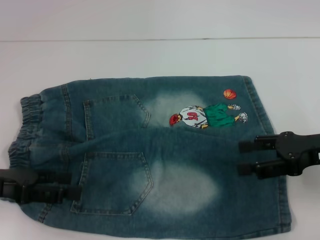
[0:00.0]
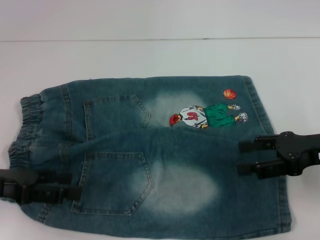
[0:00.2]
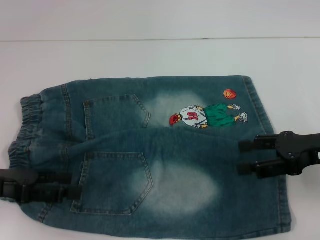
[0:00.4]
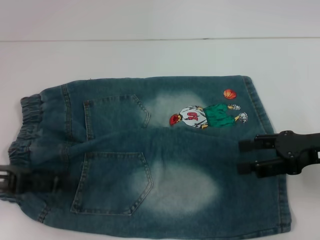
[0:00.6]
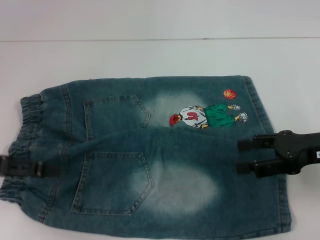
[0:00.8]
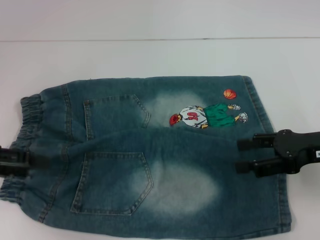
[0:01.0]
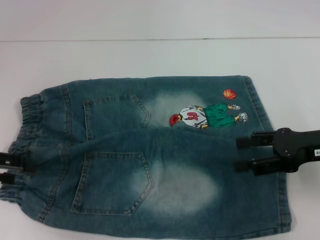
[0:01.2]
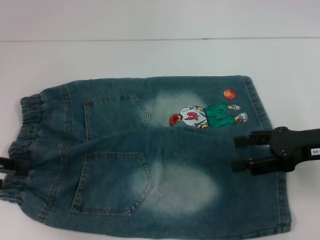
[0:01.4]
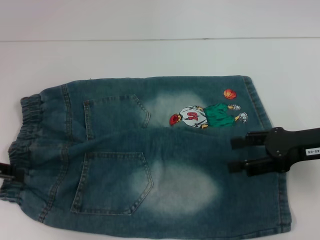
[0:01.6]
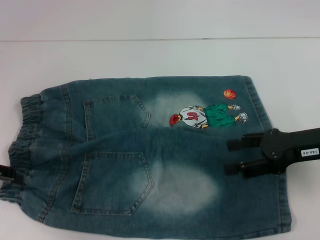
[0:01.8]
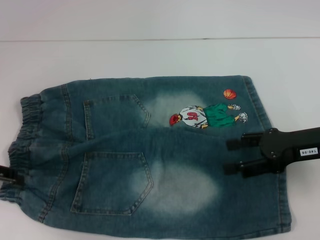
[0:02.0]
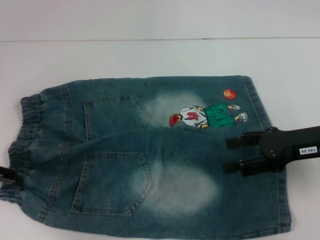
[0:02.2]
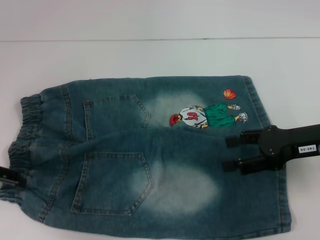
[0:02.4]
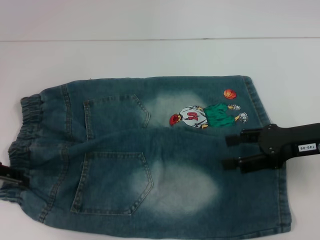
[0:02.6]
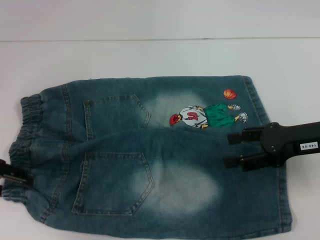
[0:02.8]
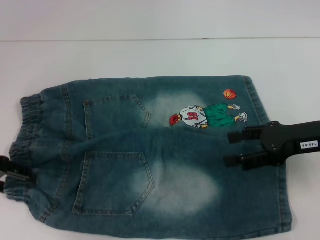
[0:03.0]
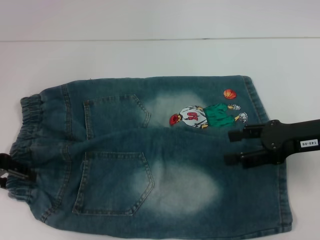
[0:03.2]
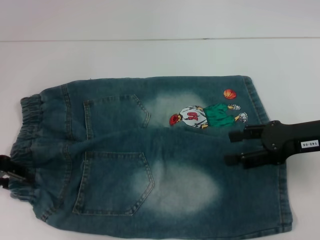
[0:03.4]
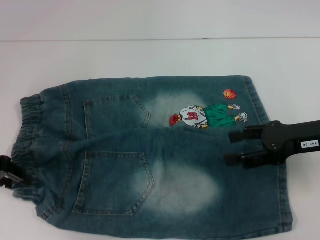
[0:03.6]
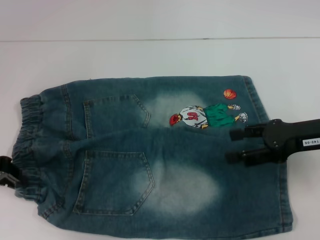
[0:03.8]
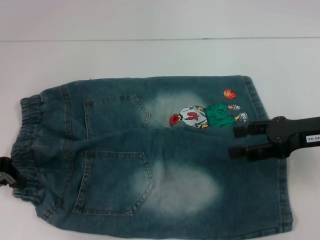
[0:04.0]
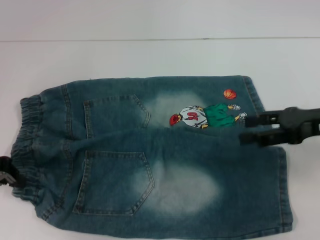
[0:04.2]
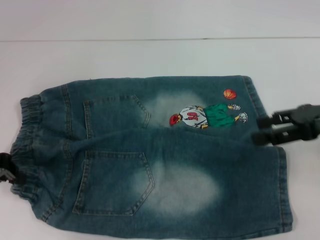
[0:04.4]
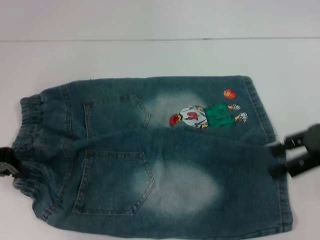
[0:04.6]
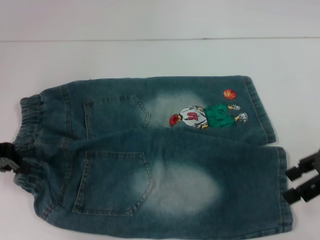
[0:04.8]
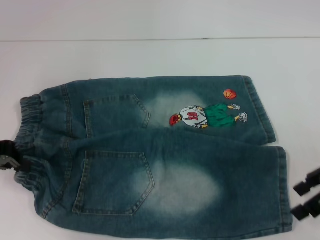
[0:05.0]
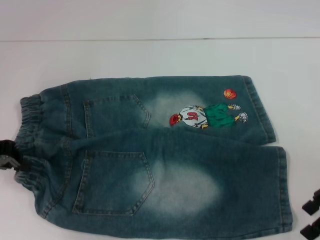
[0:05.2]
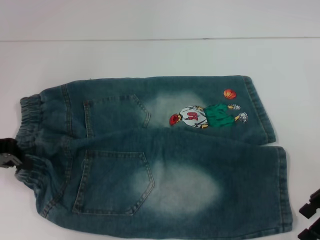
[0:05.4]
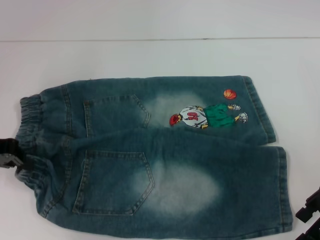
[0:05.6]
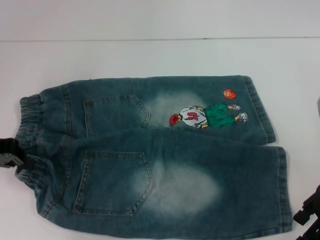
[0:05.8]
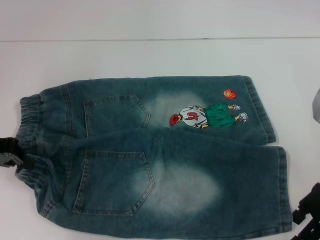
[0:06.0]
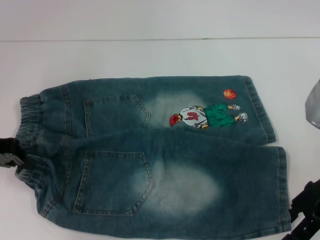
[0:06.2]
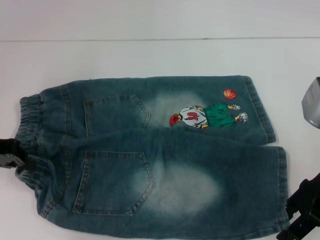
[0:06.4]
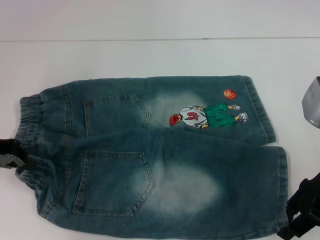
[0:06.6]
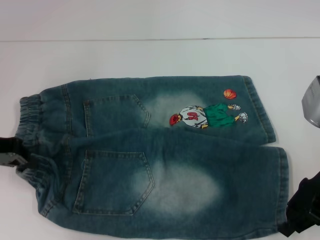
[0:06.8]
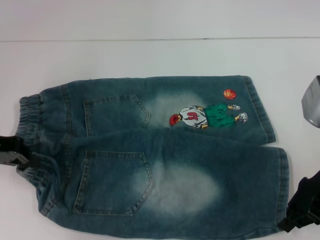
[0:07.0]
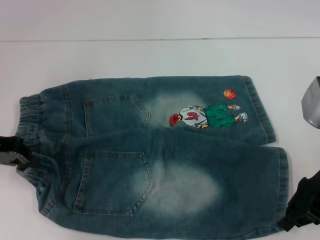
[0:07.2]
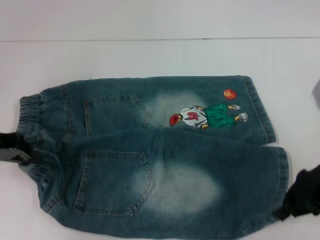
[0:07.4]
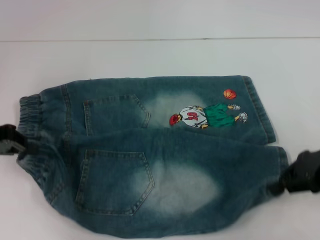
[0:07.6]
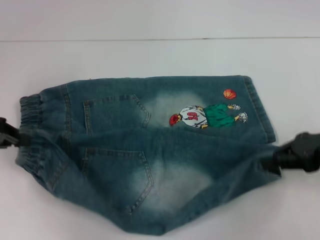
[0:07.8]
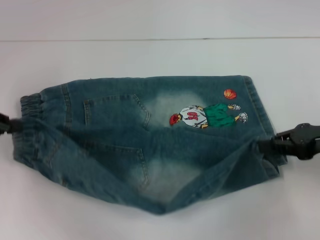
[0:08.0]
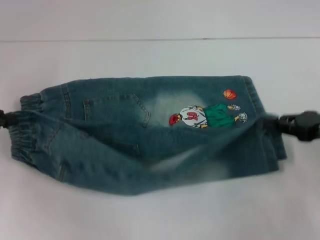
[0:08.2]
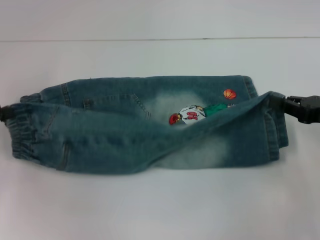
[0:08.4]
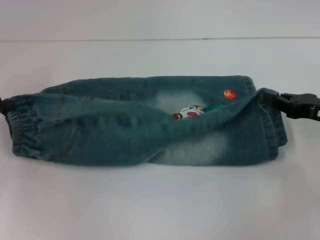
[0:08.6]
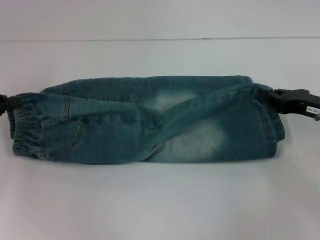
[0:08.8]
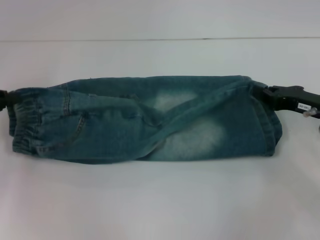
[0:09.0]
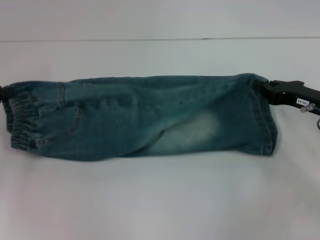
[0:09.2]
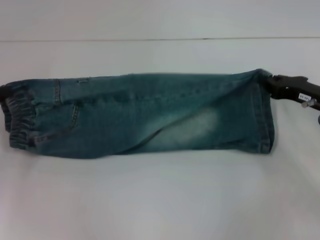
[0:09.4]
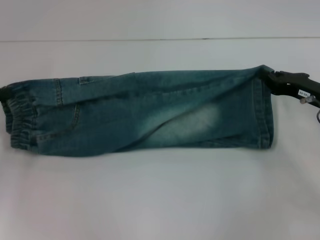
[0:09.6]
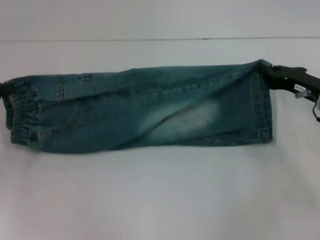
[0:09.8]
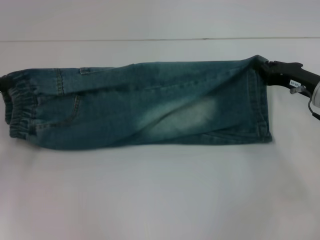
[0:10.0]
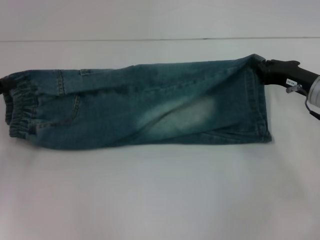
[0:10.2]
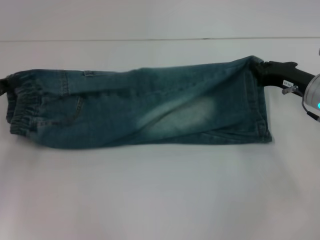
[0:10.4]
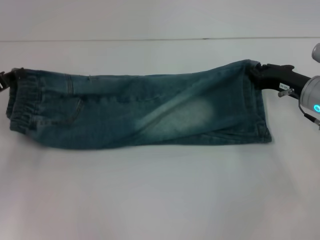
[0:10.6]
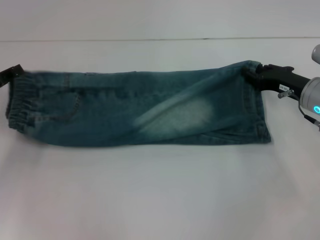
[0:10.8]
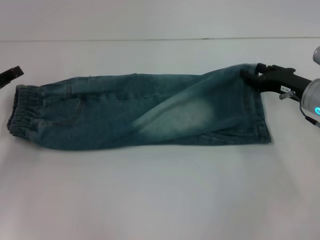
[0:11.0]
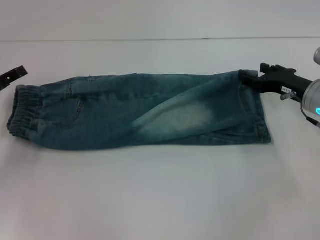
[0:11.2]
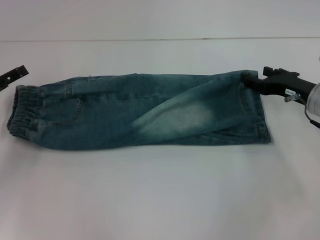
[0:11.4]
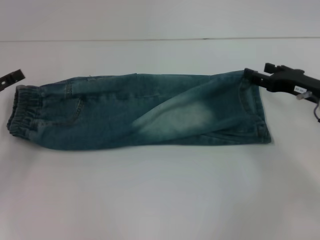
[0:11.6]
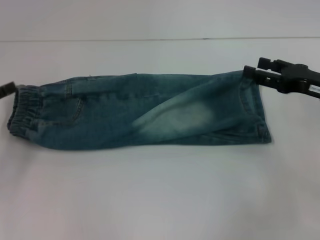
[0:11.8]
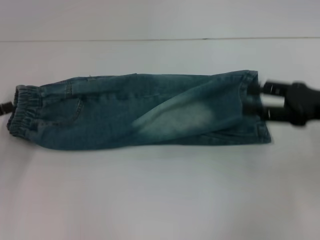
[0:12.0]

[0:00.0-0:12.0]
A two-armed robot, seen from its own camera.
Step, 0:00.0 to 0:03.4: Hold the lower left waistband with your left hand.
Step, 0:03.6 to 0:06.6: Grab the lower right pant leg with your right hand.
Step, 0:06.8 to 0:11.2: Fold upward with your right hand.
0:00.0 to 0:01.6: The left gripper changes place by some 5 cm.
0:01.6 to 0:03.0: The grippers make only small movements.
0:03.0 to 0:04.4: The right gripper ends up about 5 cm from where it was. Meanwhile the left gripper closes its fingers.
0:04.4 to 0:06.0: The right gripper shifts by some 5 cm.
0:06.0 to 0:07.6: The right gripper closes its fingers.
0:07.6 to 0:09.0: The right gripper moves downward, some 5 cm.
0:09.0 to 0:10.4: The grippers move only a little.
0:10.4 to 0:12.0: The left gripper ends up about 5 cm from where it was, and opens up. Meanwhile the right gripper shifts about 10 cm backward and upward, and opens its fingers.

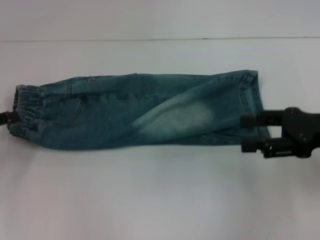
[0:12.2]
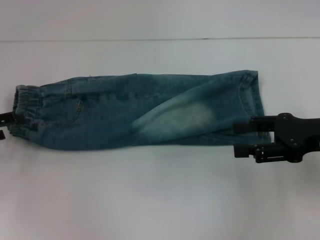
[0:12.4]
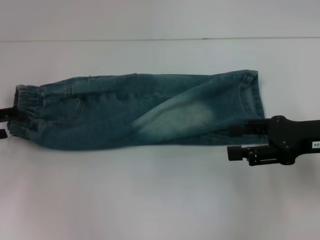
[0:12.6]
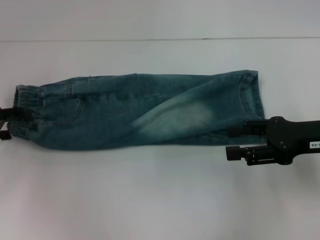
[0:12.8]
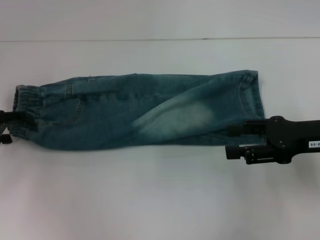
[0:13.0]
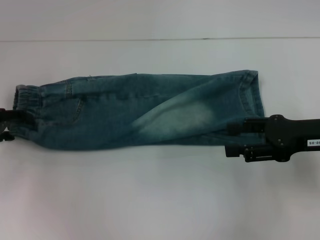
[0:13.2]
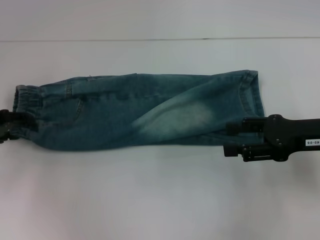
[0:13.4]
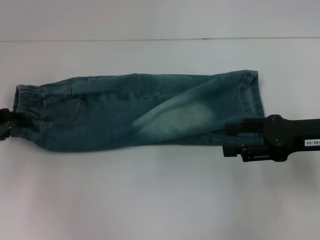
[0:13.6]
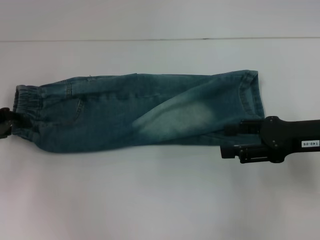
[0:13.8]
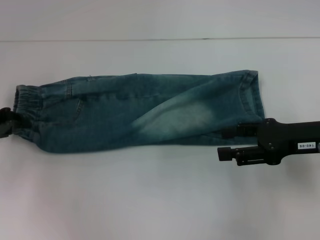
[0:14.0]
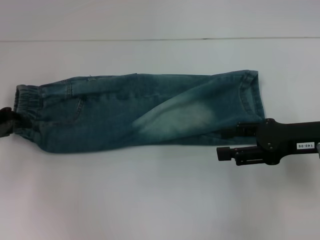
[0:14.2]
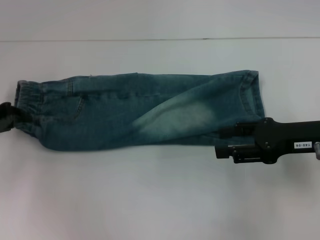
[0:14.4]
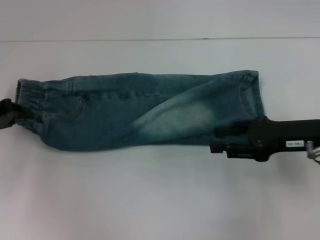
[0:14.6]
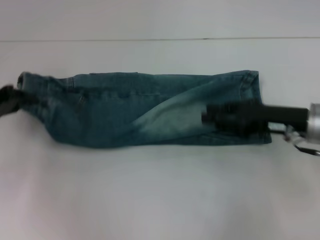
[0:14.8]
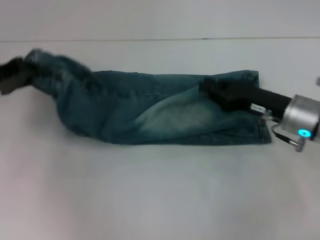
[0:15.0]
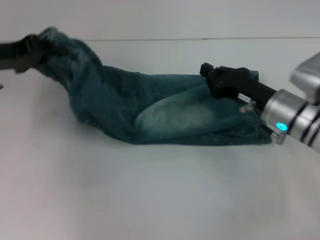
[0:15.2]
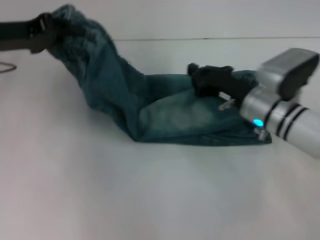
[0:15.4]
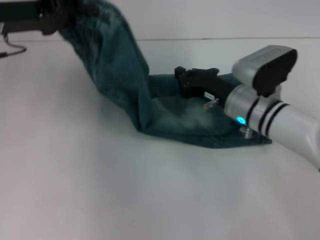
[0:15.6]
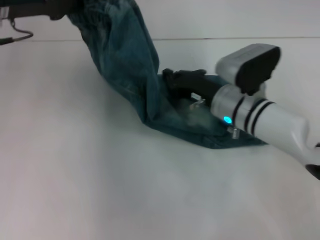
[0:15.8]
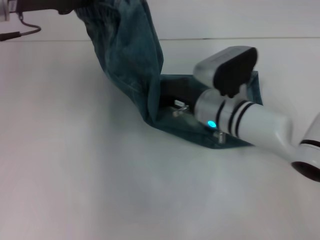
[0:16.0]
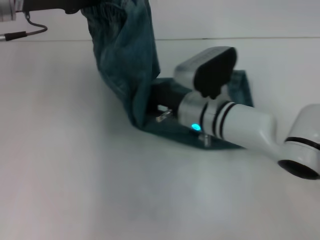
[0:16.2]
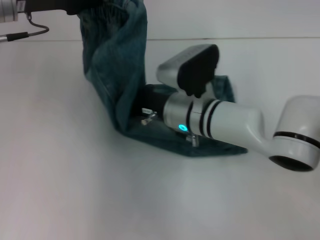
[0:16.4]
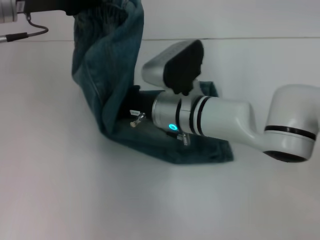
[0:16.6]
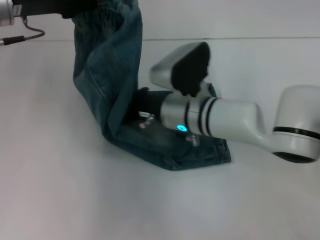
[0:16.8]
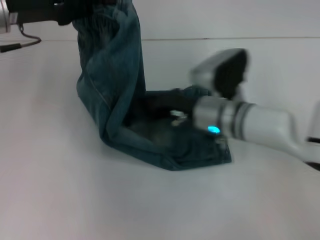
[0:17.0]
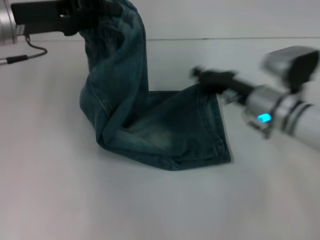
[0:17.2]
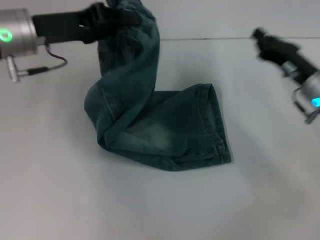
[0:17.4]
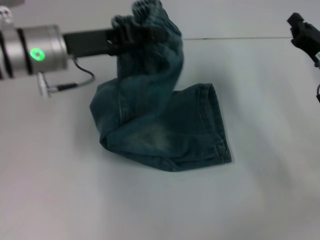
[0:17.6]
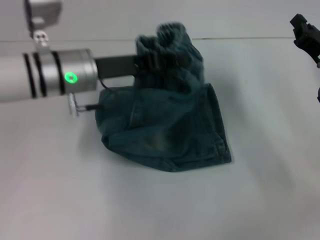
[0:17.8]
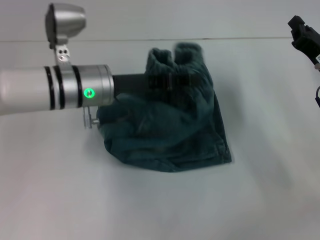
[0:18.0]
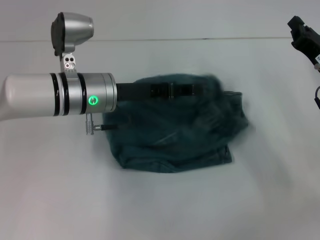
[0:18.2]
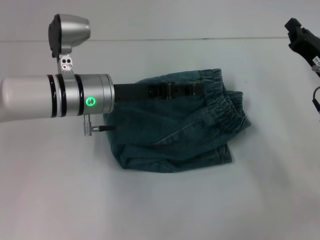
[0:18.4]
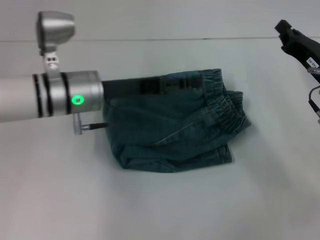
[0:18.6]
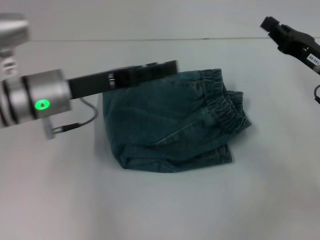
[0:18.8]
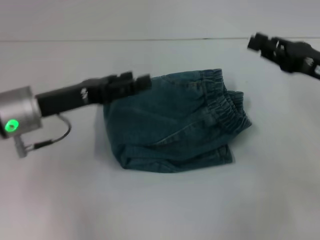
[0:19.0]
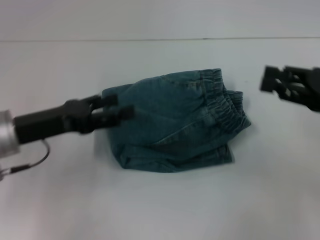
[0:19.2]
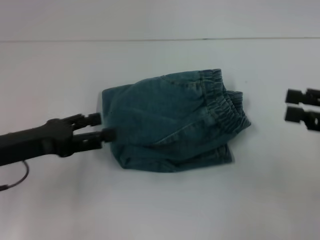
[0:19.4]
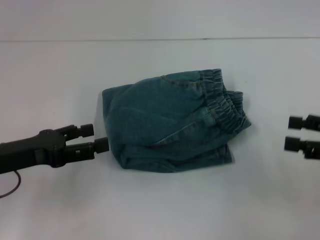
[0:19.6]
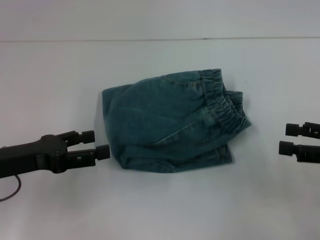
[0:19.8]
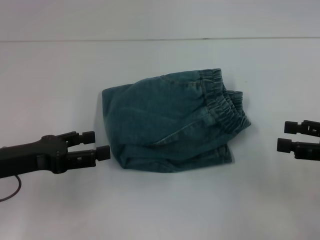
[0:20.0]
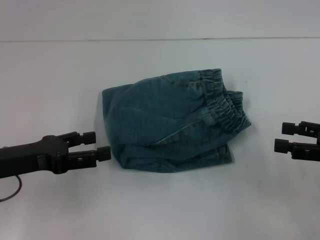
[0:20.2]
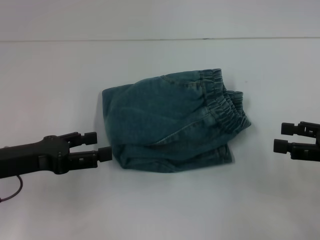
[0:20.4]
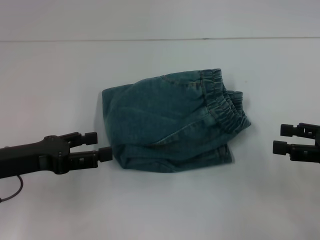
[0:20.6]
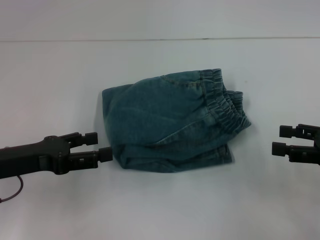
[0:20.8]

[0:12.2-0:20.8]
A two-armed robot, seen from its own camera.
Step, 0:12.2 to 0:13.6: Grab the waistband with your right hand.
Step, 0:13.8 to 0:16.8: Press the middle of the pants with your left hand.
Step, 0:17.2 to 0:18.4: Fold to the left with your right hand.
0:12.2 to 0:13.6: The left gripper changes place by some 5 cm, and closes.
0:13.6 to 0:15.0: The left gripper ends up some 5 cm from where it was, and closes its fingers; the right gripper heads to the left, covering roughly 5 cm, and closes up.
0:15.0 to 0:16.6: The left gripper shifts about 15 cm to the right, upward and forward. The right gripper shifts roughly 20 cm to the left, and closes its fingers.
0:16.6 to 0:18.0: The left gripper heads downward and to the right, covering roughly 15 cm. Meanwhile the right gripper goes approximately 25 cm to the right.
0:18.0 to 0:19.4: The left gripper travels to the left and backward by approximately 15 cm, and opens; the right gripper is displaced backward, upward and to the right by roughly 15 cm, and opens its fingers.
0:19.4 to 0:20.8: The right gripper opens.
